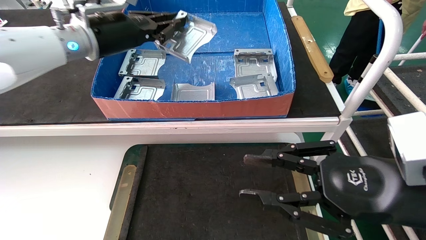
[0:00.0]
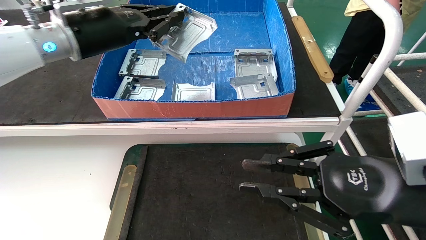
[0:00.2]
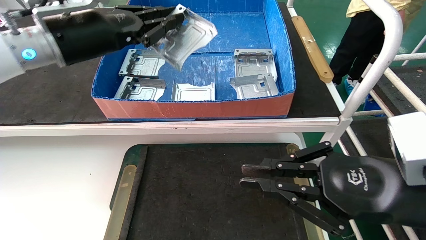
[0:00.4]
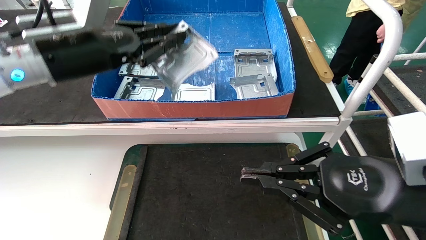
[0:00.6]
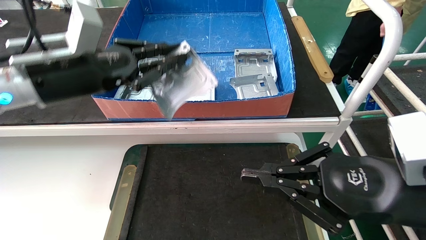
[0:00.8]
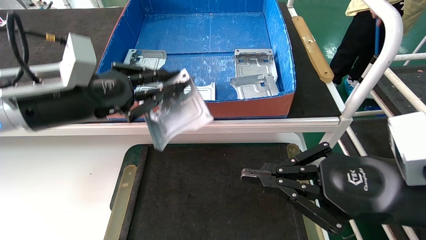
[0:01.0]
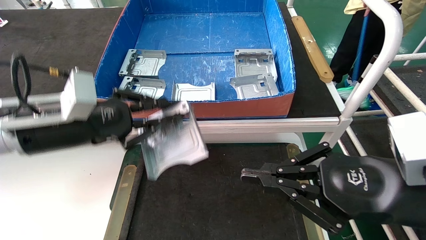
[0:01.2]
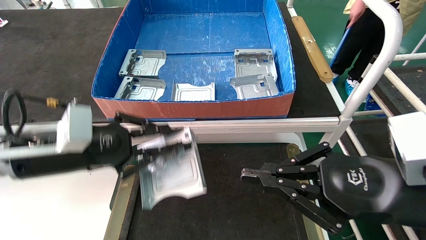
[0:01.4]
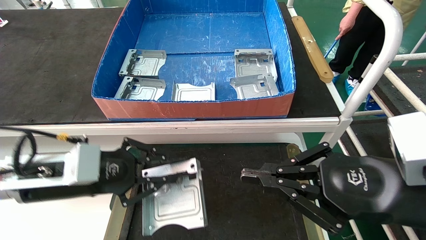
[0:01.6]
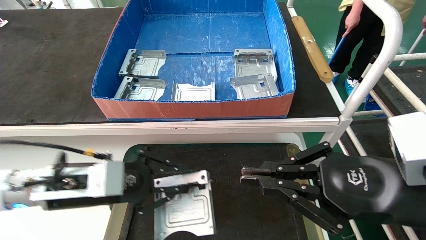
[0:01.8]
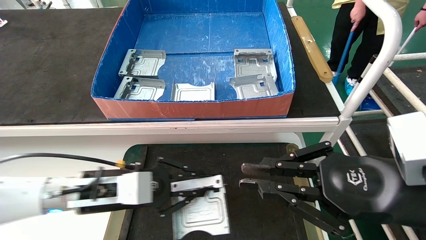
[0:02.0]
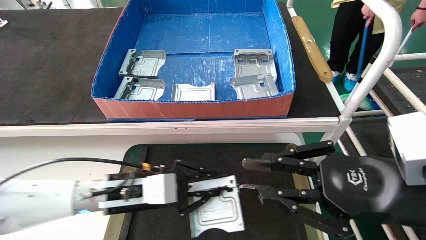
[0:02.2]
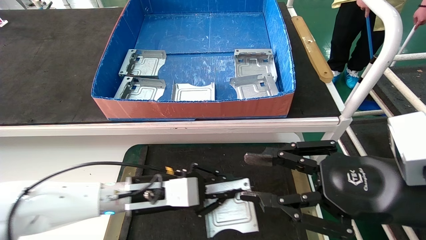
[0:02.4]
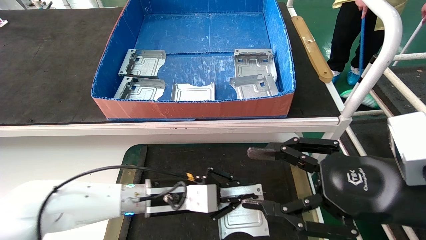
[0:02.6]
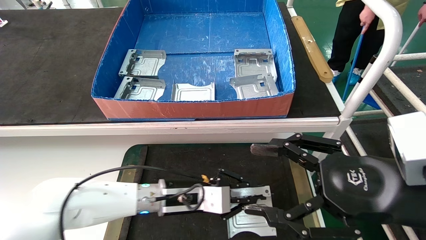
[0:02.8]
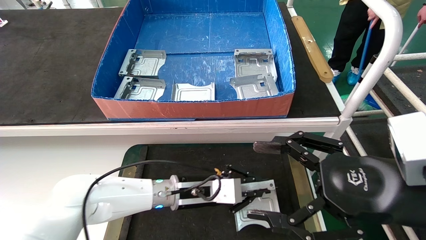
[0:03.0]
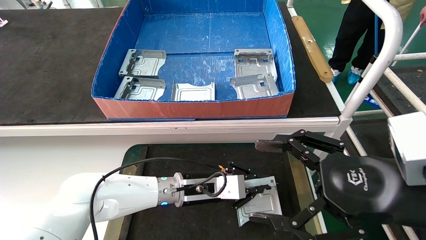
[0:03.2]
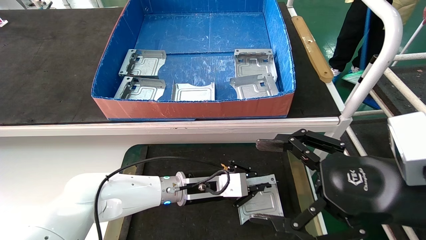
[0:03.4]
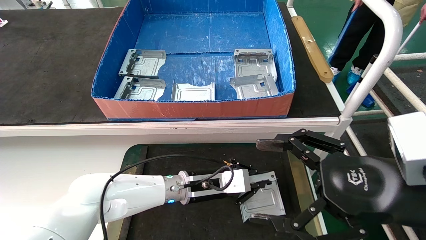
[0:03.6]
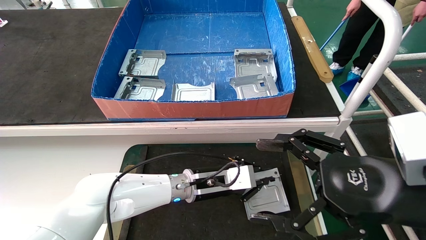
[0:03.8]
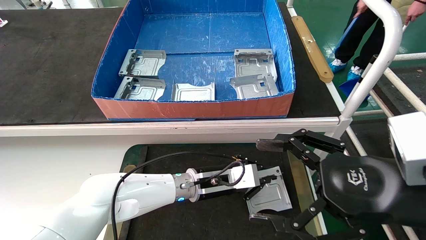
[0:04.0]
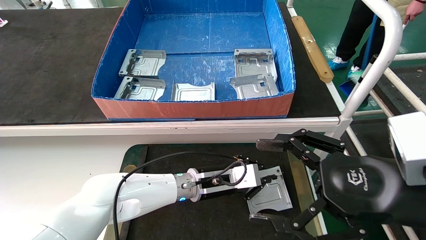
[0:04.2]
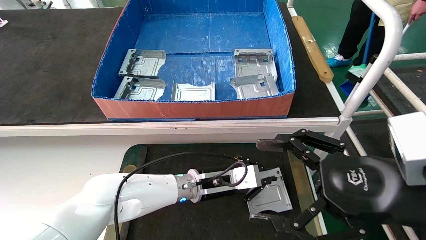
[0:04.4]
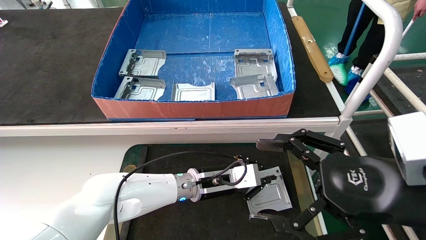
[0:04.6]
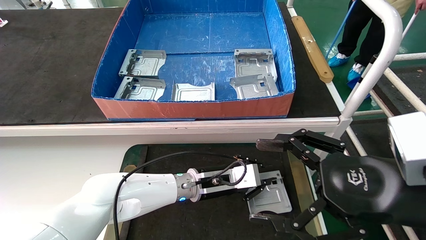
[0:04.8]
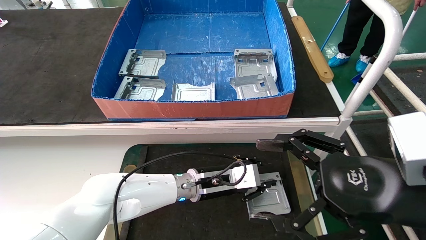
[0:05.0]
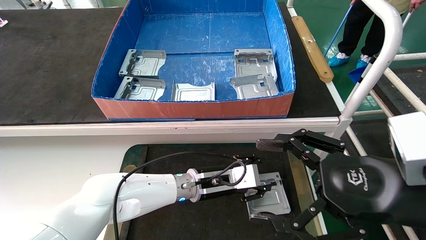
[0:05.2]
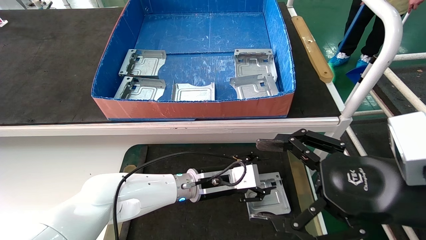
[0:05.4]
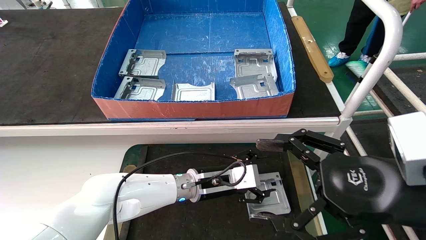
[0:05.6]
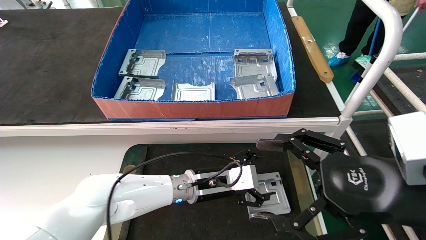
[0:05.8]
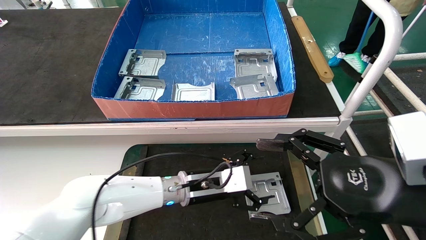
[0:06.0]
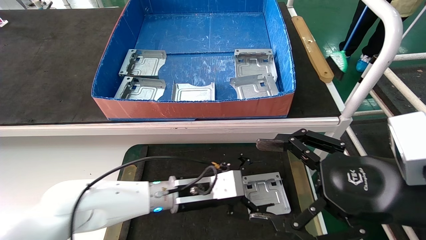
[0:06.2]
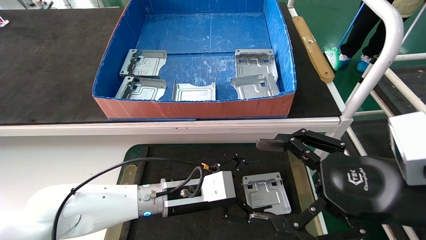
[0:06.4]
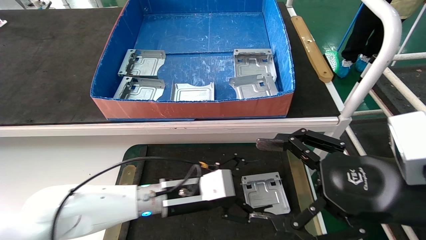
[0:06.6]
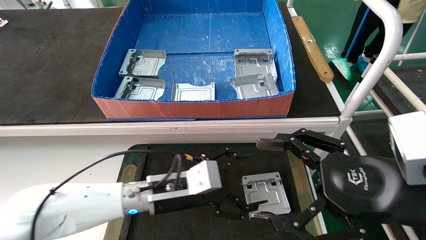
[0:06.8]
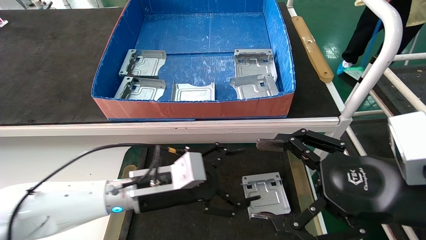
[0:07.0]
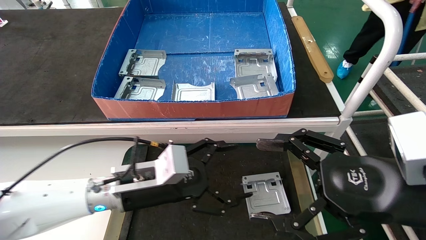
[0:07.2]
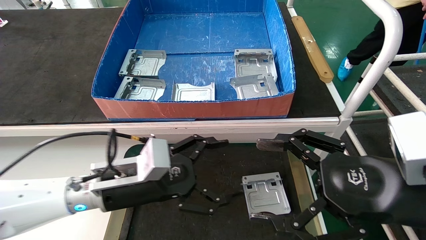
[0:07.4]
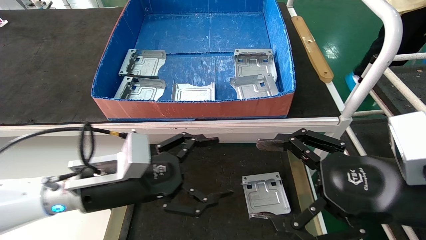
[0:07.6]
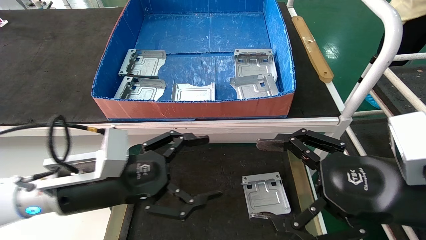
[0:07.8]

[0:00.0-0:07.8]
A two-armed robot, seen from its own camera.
Task of the whole recording: take the accessories out of the box and place them on the table.
Step, 0:00.0 to 0:05.0: Place the hard drive bracket into the box.
0:00.0 to 0:01.6: The left gripper moves downward and backward, approximately 25 cm; the right gripper closes up.
0:01.6 to 0:03.2: The left gripper is displaced to the right, forward and downward by approximately 25 cm; the right gripper opens up.
0:03.2 to 0:04.6: The grippers move only a little.
0:04.6 to 0:06.2: The left gripper changes place by roughly 5 cm, and opens up.
0:06.2 to 0:07.8: The left gripper heads to the left, backward and upward, covering approximately 20 cm.
